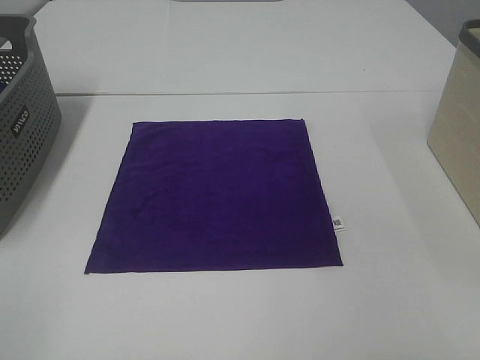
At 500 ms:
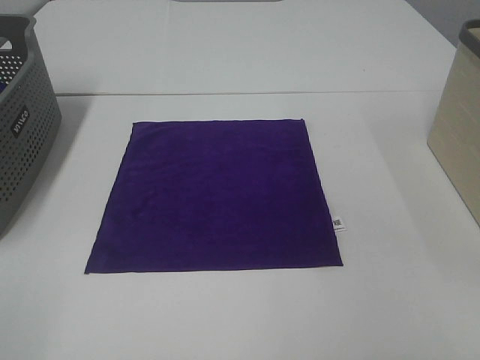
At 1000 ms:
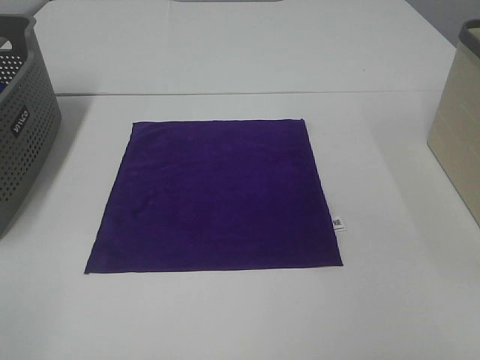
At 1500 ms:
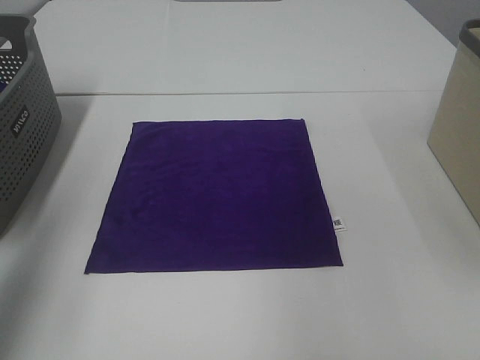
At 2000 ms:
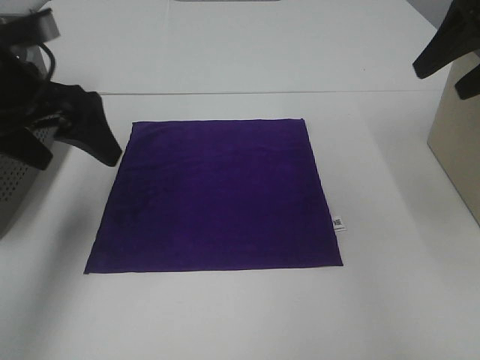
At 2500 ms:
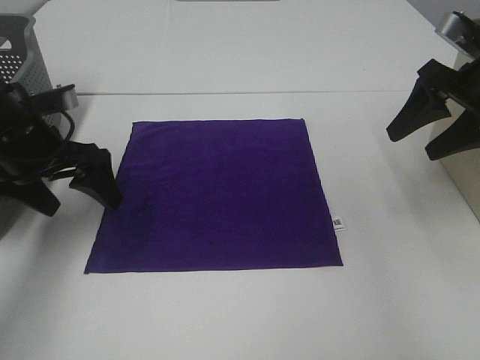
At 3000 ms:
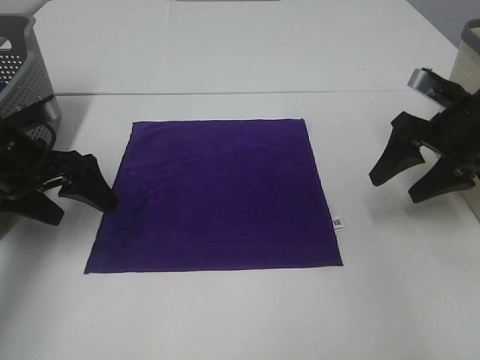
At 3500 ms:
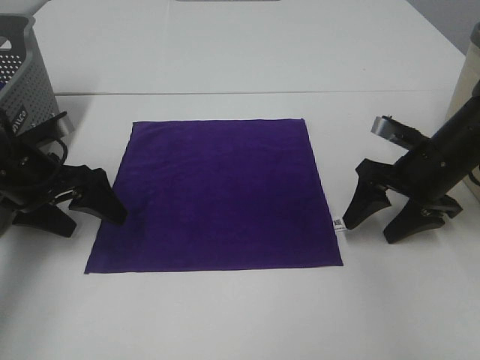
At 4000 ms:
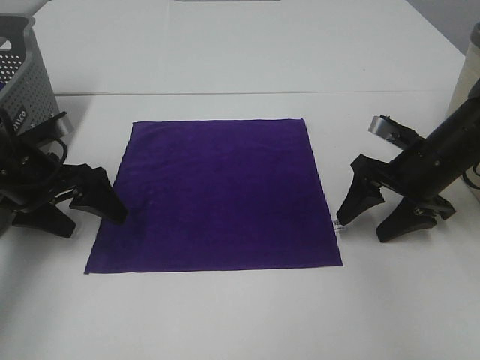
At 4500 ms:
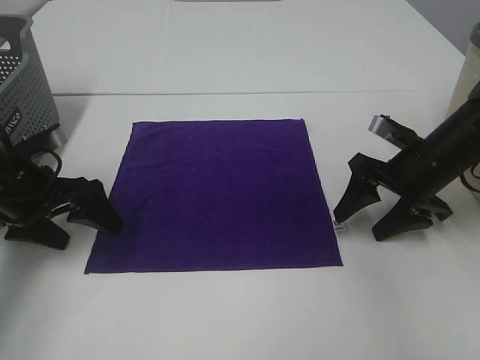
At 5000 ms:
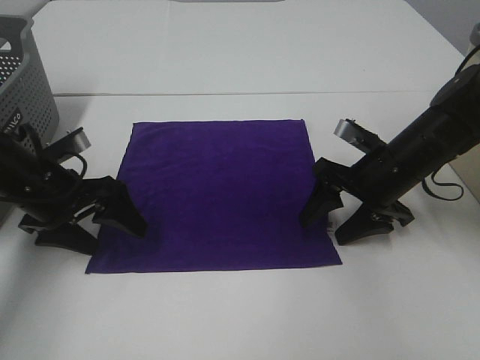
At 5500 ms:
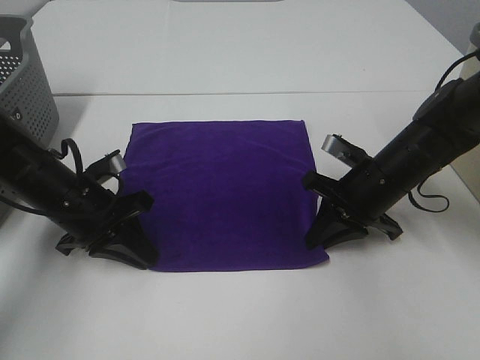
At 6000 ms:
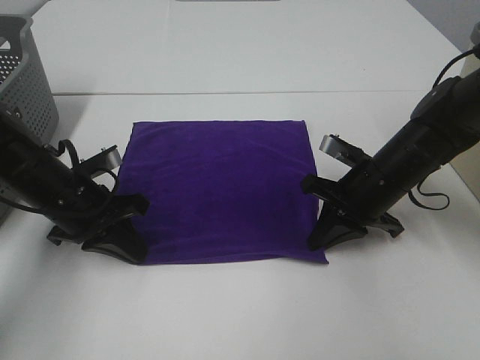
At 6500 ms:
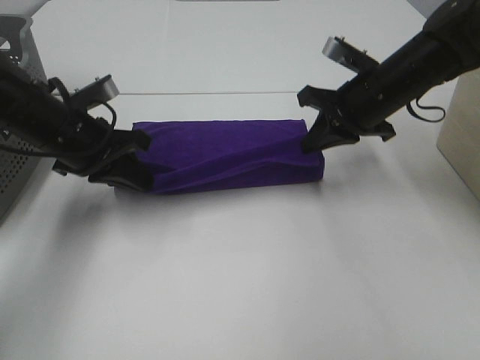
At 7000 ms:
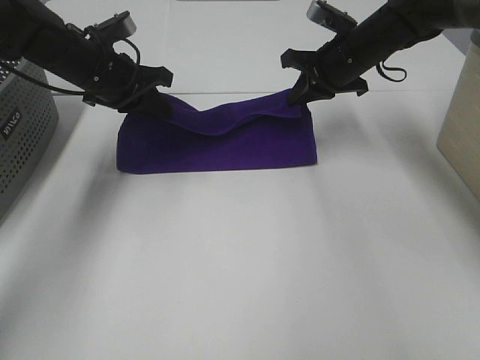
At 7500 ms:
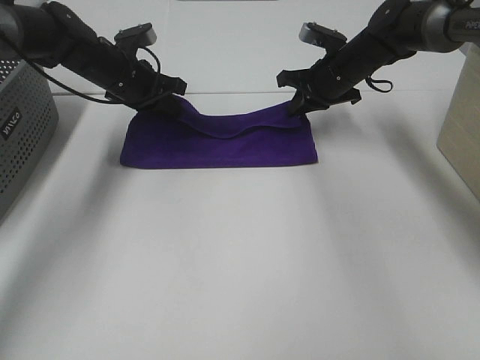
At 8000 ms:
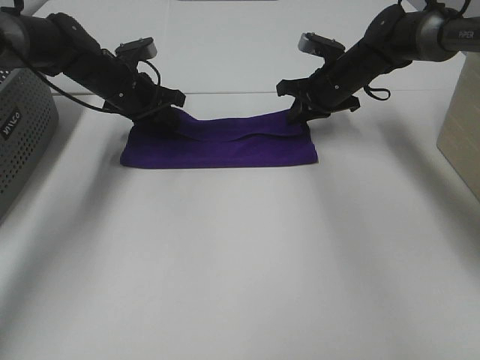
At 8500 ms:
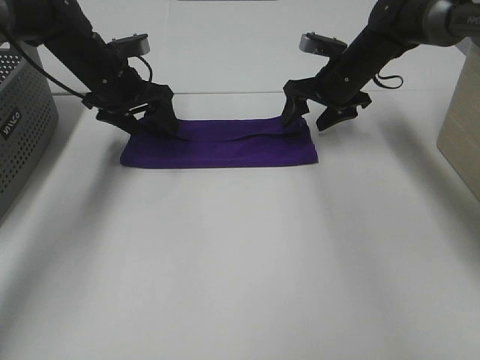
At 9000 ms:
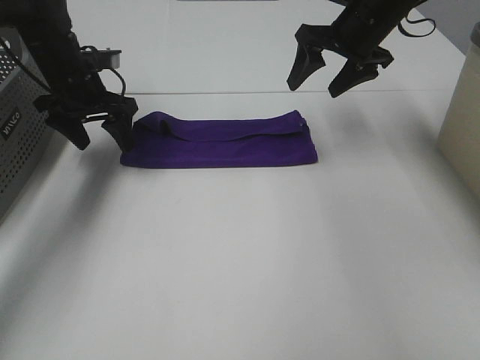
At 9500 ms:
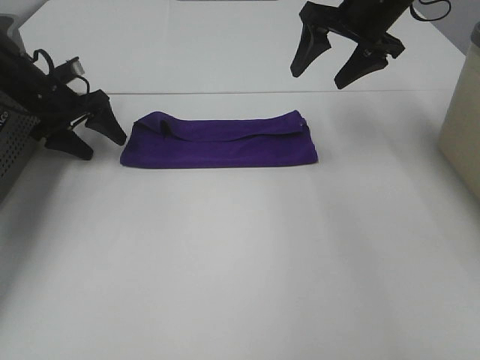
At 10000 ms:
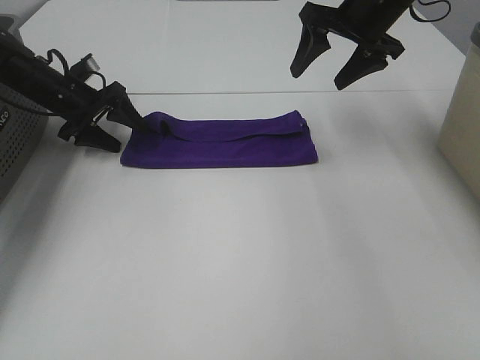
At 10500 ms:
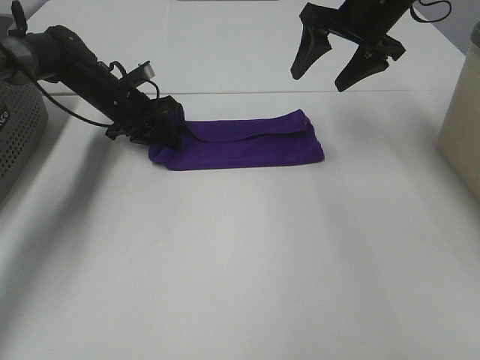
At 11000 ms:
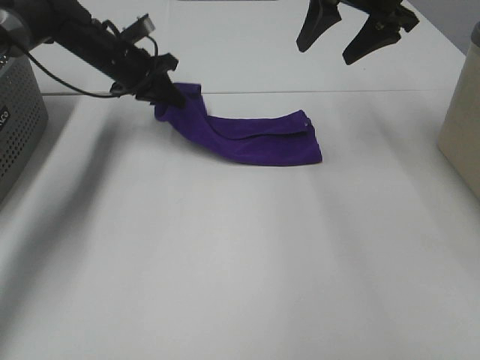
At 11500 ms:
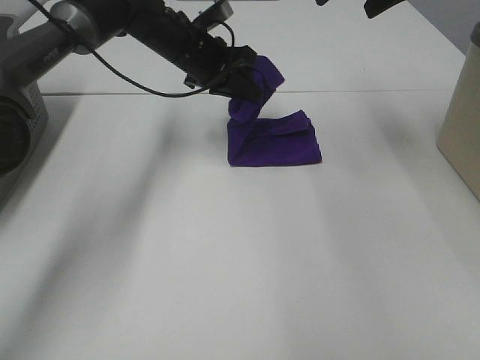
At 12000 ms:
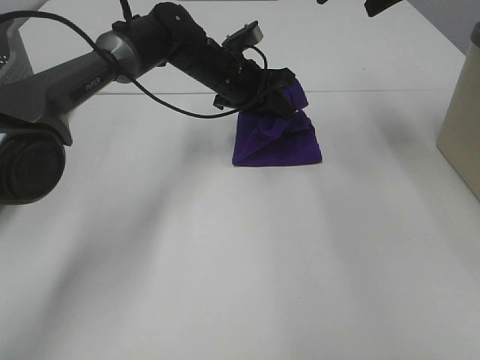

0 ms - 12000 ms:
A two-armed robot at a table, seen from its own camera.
Task of the whole recording: Fold towels.
Step, 0 ms - 5500 ms: Left hand: grab the bottom left corner of purple towel.
Step, 0 ms - 5500 ms: Right hand: grab the bottom right corner of purple towel.
Step, 6000 ms - 8500 ms: Left hand: fold the purple towel up.
Step, 6000 ms - 8500 ms: Right hand: fold the purple towel up.
0 ms - 2000 ms: The grippers both shift forward by about 35 cm.
2000 ms - 4000 ms: The right gripper moves downward, roughly 20 cm; the left gripper travels downward by approximately 15 cm.
4000 ms - 6000 ms: The right gripper travels to the left by roughly 5 cm, and closes its fingers. Meanwhile the left gripper heads to the right, covering about 5 cm, and closes its fingers.
6000 ms - 8000 ms: Both grippers travel together forward, approximately 20 cm.
8000 ms - 10000 ms: The right gripper heads upward, covering about 15 cm, and opens its fingers. Meanwhile the left gripper travels to the left by some 10 cm, and opens.
10000 ms - 12000 ms: The right gripper moves upward, roughly 10 cm, while the left gripper travels to the right by some 25 cm, and closes its fingers.

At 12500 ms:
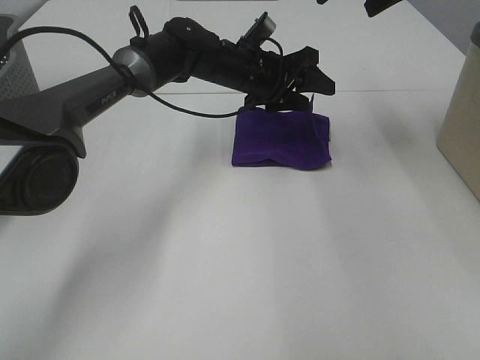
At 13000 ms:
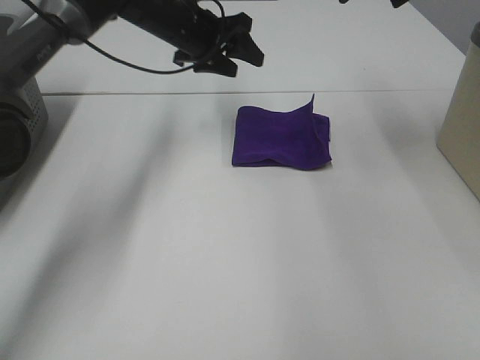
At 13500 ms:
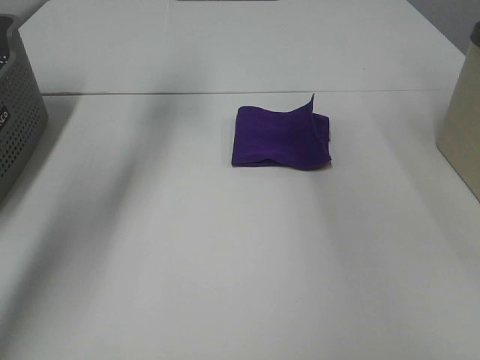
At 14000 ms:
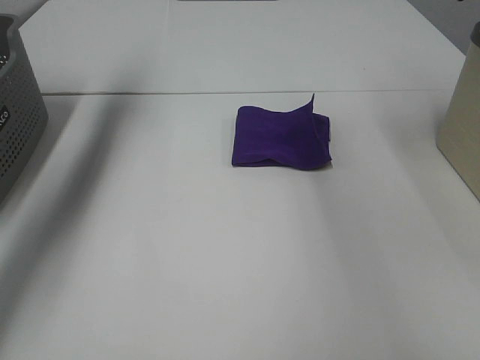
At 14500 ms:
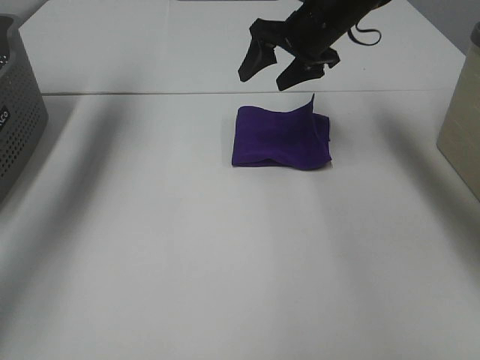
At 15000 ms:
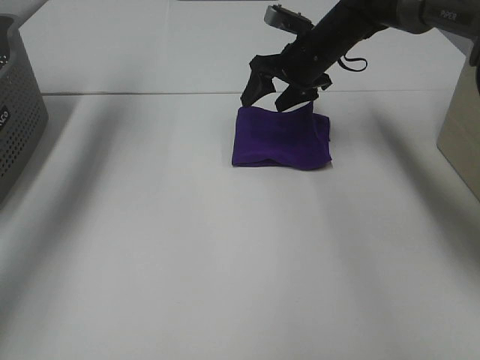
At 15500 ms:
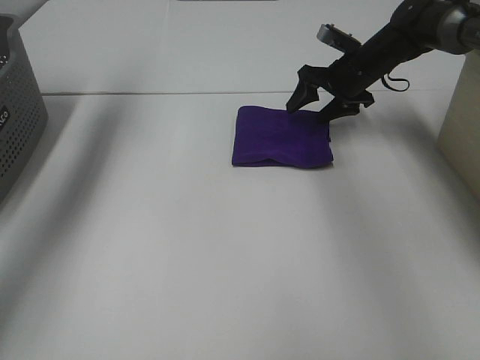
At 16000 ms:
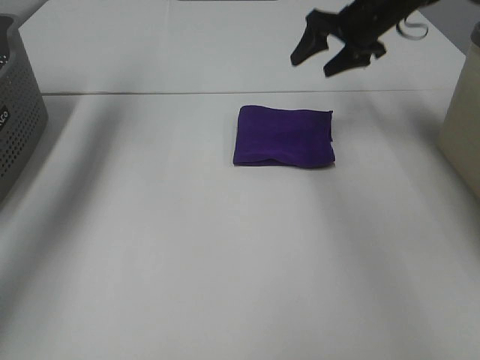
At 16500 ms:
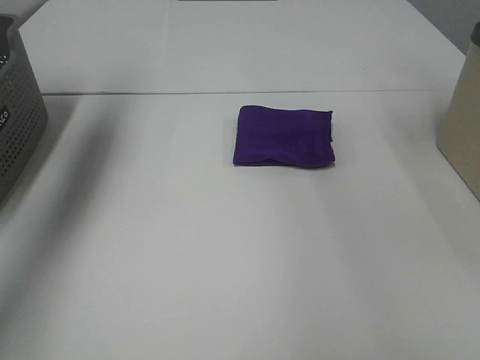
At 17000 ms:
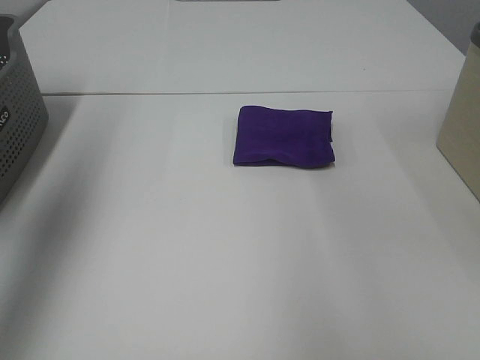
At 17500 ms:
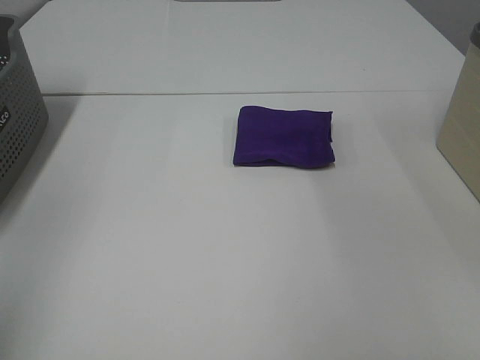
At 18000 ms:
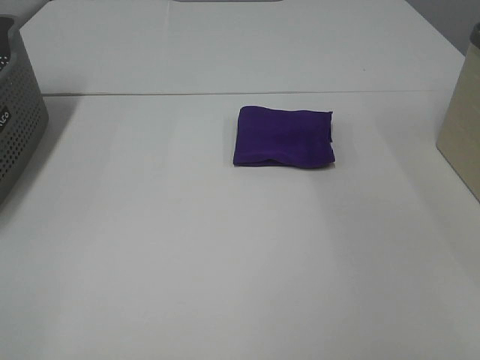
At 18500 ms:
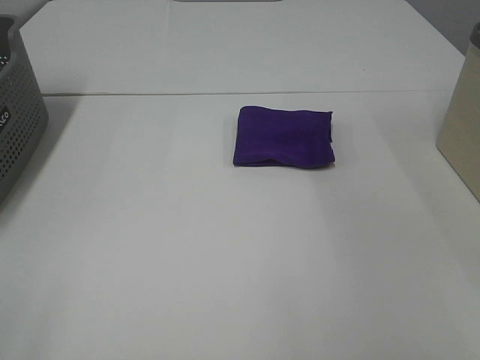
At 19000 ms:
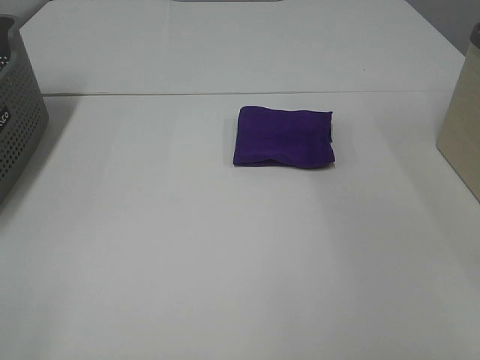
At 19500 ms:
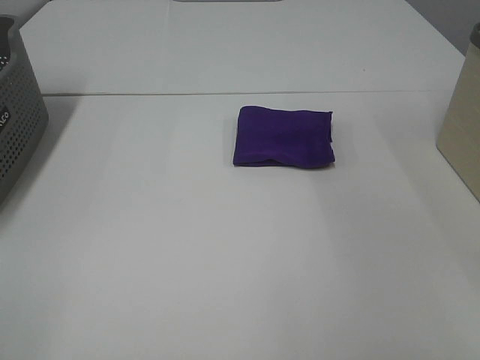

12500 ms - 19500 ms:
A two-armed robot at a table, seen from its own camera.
Task of the whole recording: Fold towels.
Step, 13000 ms - 15500 ms: Right hand: adjust the purple towel.
12500 ms - 14500 ms: The right gripper shifts some 15 cm downward, to the left and forward. Meanwhile the left gripper travels to the left and upward by approximately 40 cm.
14500 ms - 16000 ms: The right gripper heads to the right, covering roughly 10 cm, and moves some 10 cm downward and comes back.
16000 ms - 17500 ms: Both grippers travel together backward, approximately 50 cm.

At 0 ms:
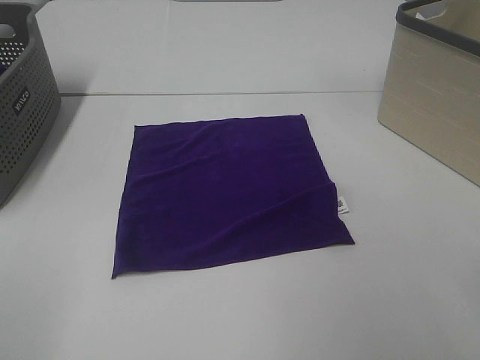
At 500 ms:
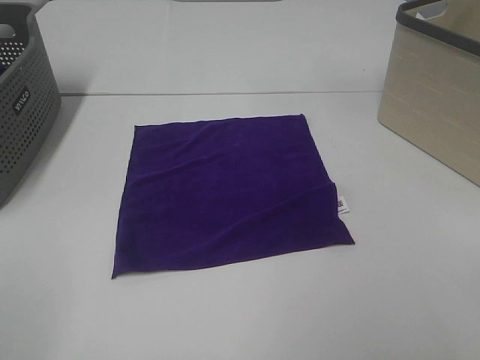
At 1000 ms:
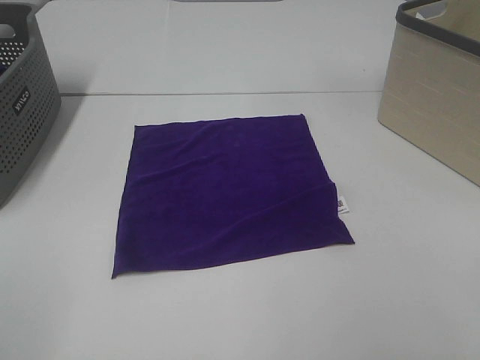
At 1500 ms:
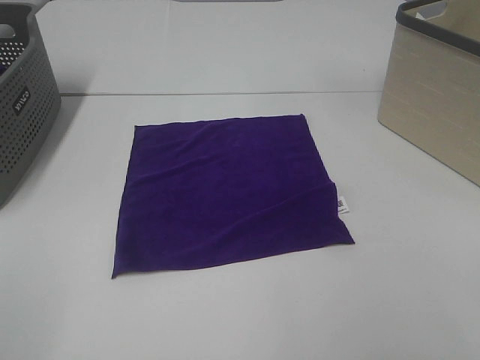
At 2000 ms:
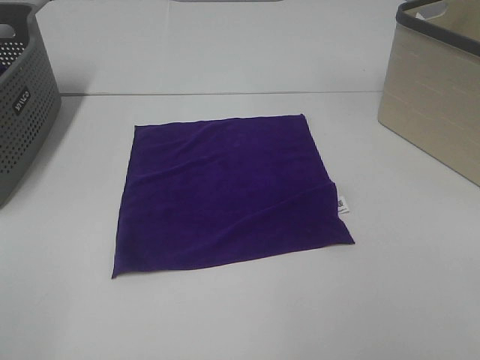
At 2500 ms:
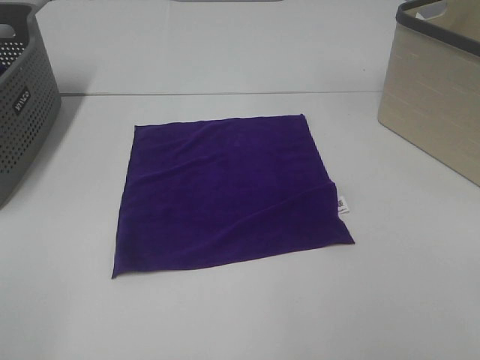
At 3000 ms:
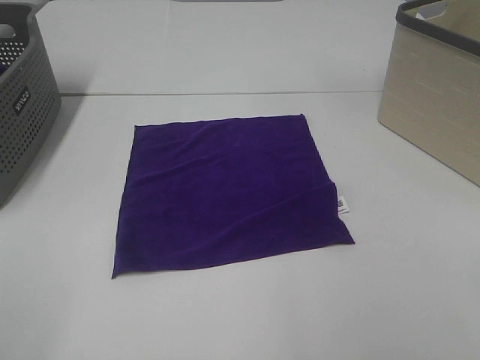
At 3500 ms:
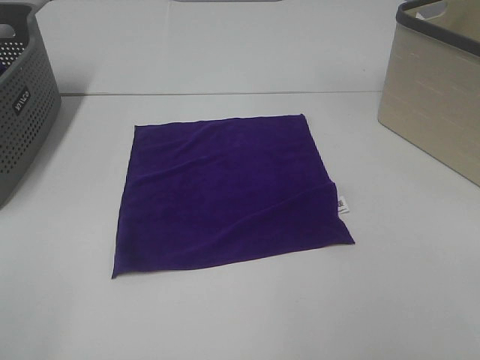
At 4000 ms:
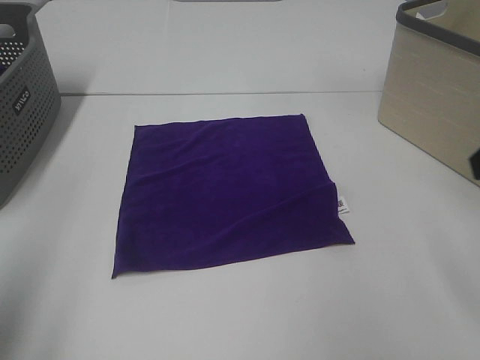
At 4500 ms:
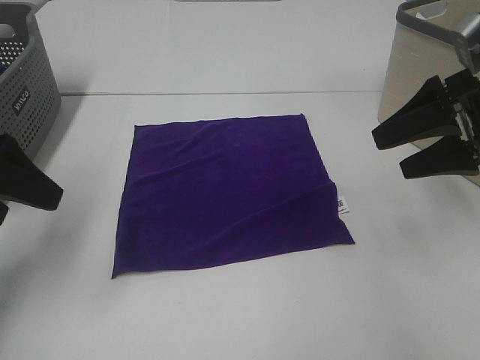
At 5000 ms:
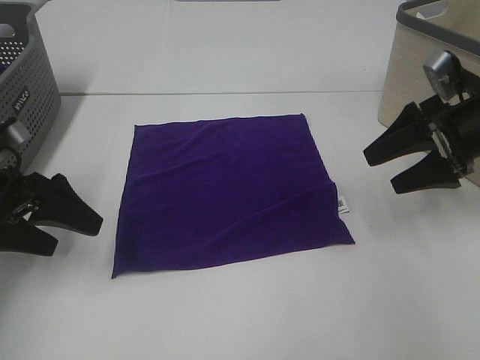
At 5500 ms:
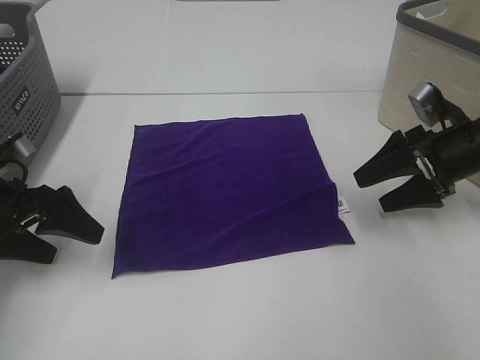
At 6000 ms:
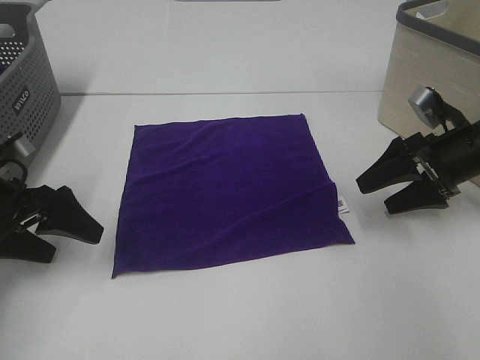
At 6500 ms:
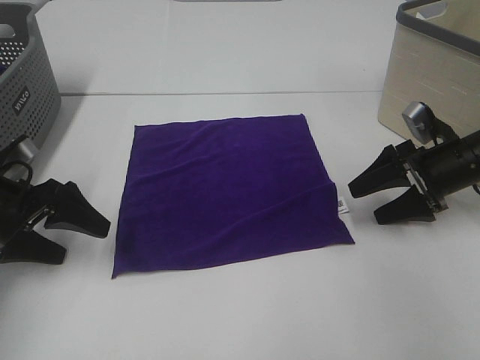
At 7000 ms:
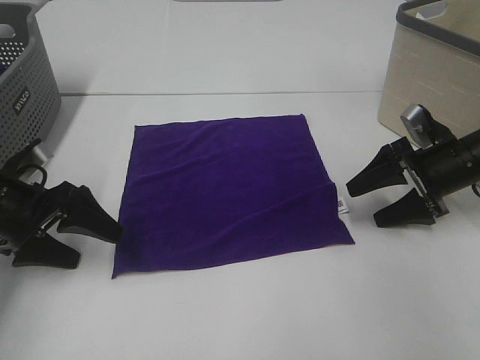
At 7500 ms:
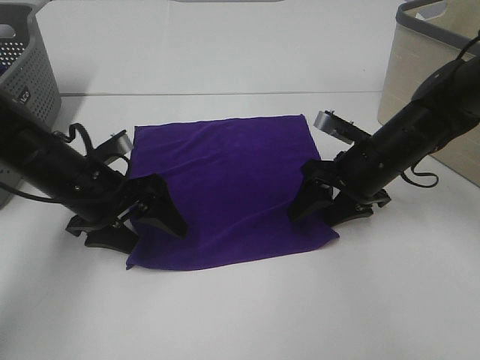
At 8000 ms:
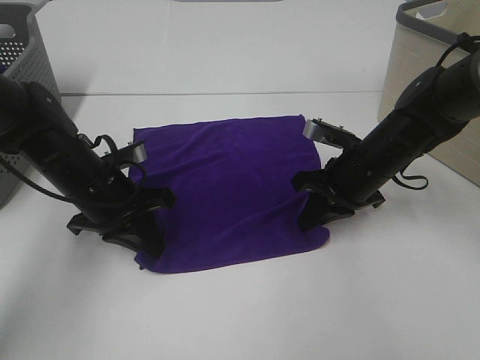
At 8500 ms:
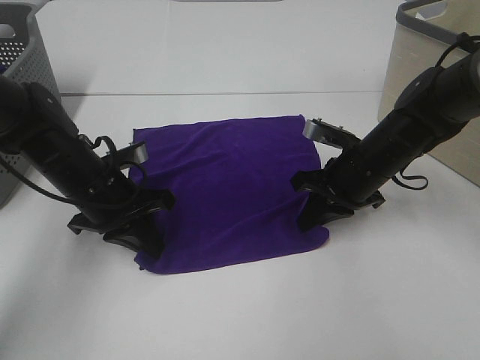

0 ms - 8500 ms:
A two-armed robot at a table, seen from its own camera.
Task of the whole recording: Fold towels.
Step, 0 ms - 8000 ms: Left hand: grab the bottom left corner of purple towel.
Step, 0 ms - 8000 ms: Right hand: grab the bottom right corner of purple towel.
2000 ms - 4000 ms: The left gripper shifts some 15 cm forward.
4000 ms - 6500 ms: The grippers both shift downward and forward by approximately 25 cm.
6500 ms - 8500 ms: The right gripper shifts approximately 10 cm to the left, and closes. Meanwhile the left gripper heads to the right, covering roughly 10 cm, and closes its fingers.
